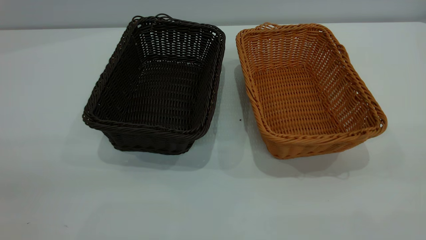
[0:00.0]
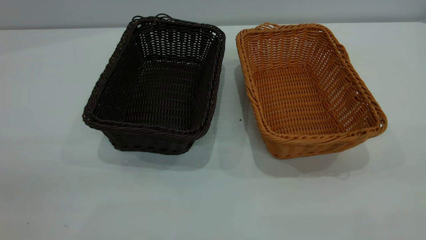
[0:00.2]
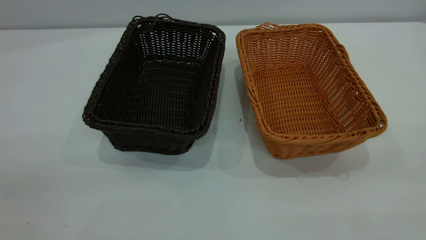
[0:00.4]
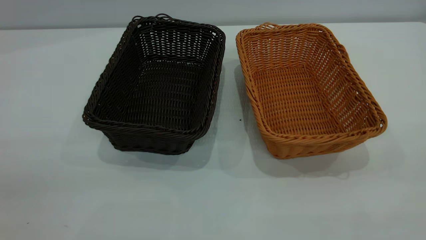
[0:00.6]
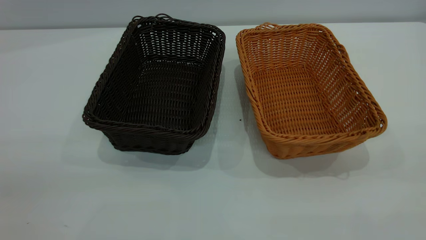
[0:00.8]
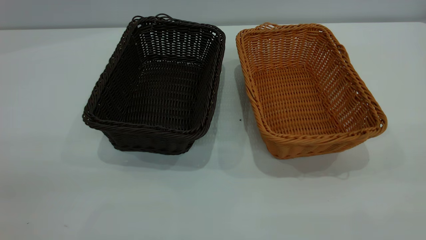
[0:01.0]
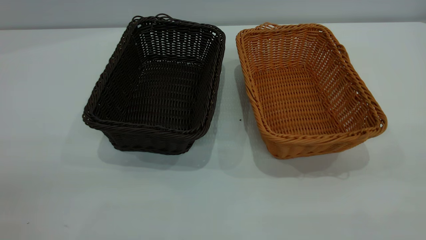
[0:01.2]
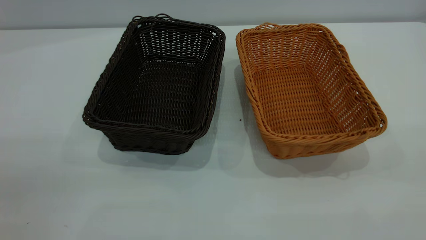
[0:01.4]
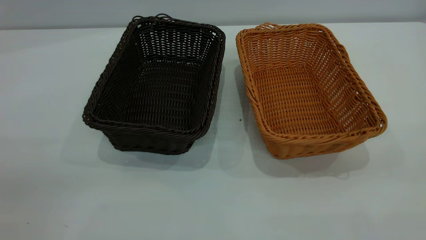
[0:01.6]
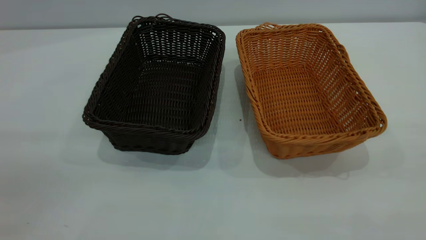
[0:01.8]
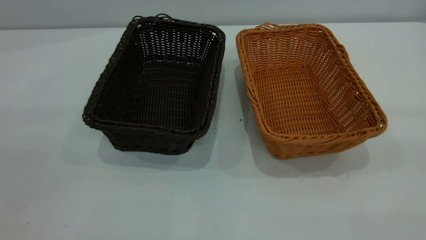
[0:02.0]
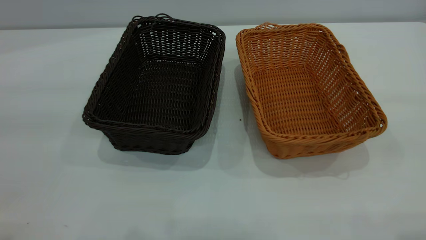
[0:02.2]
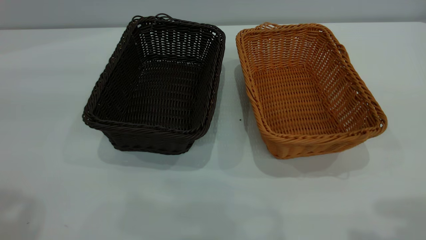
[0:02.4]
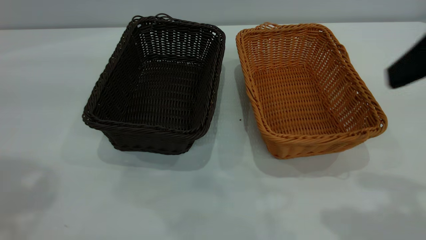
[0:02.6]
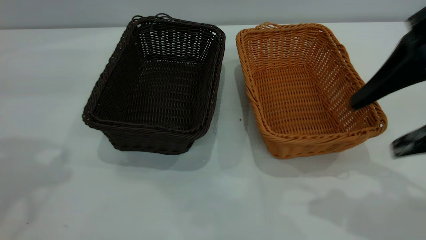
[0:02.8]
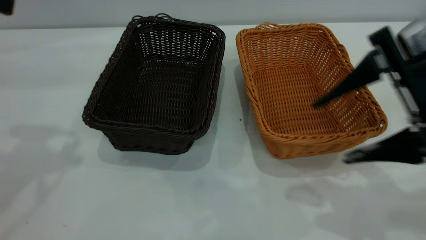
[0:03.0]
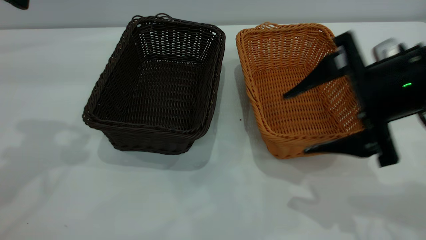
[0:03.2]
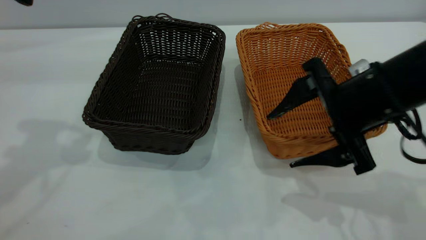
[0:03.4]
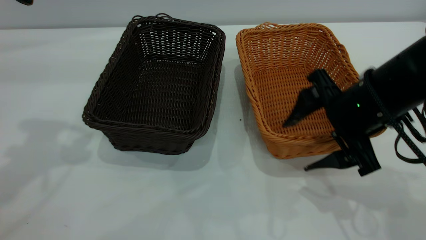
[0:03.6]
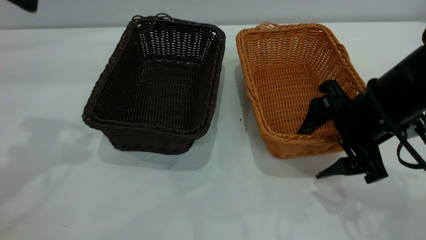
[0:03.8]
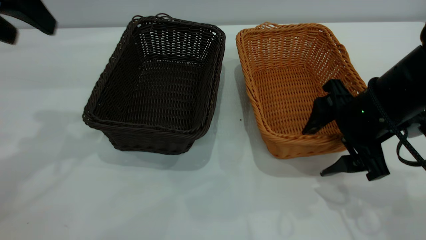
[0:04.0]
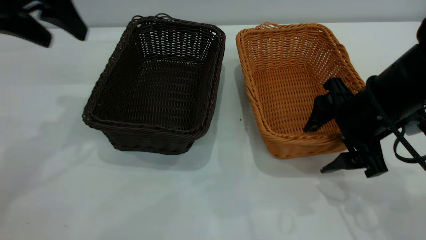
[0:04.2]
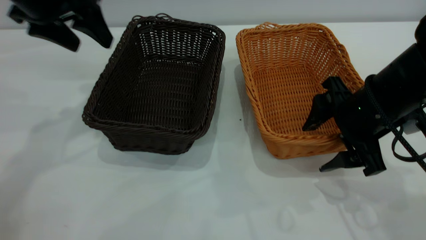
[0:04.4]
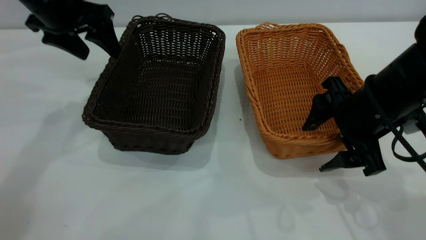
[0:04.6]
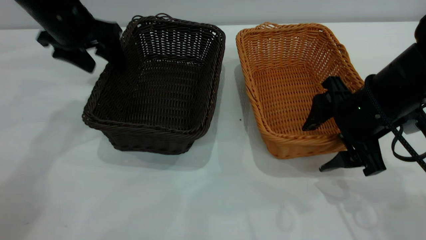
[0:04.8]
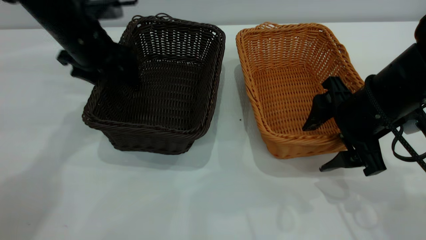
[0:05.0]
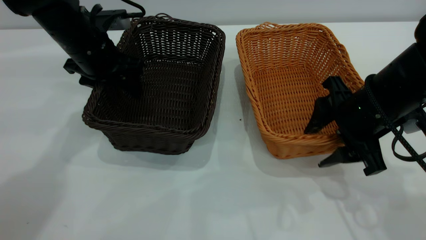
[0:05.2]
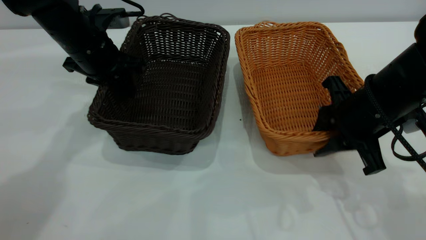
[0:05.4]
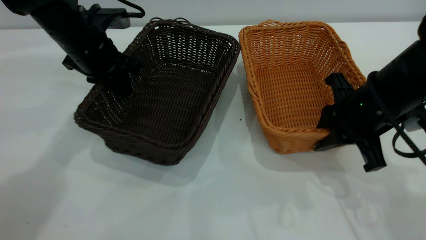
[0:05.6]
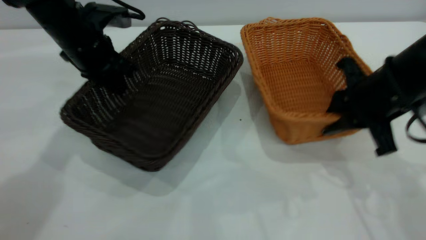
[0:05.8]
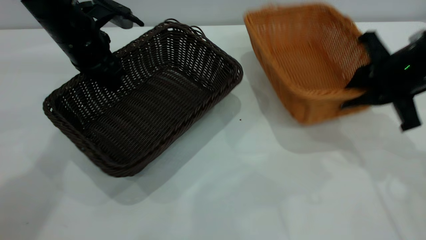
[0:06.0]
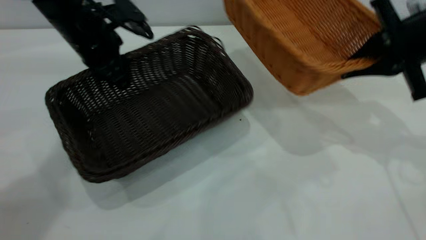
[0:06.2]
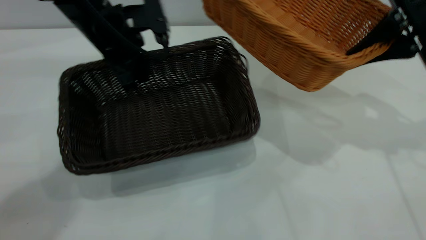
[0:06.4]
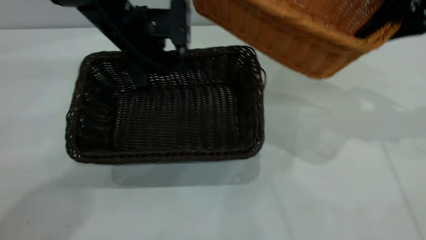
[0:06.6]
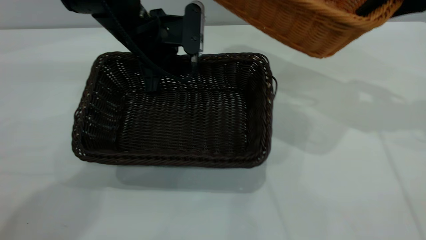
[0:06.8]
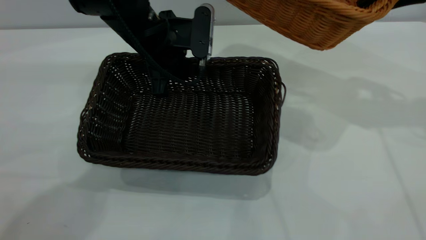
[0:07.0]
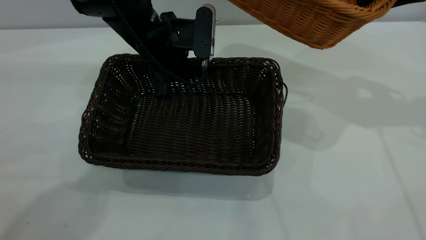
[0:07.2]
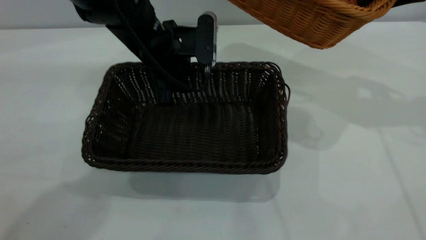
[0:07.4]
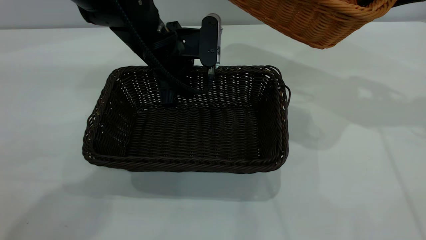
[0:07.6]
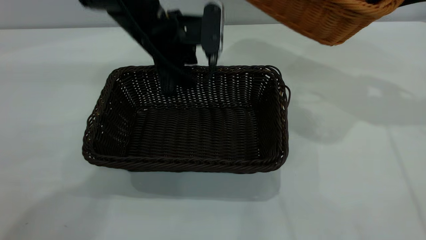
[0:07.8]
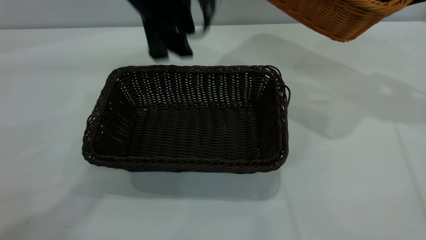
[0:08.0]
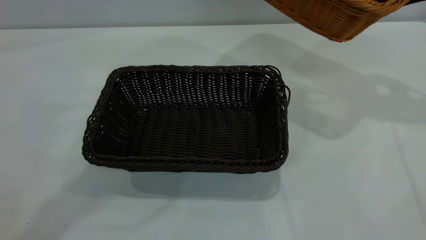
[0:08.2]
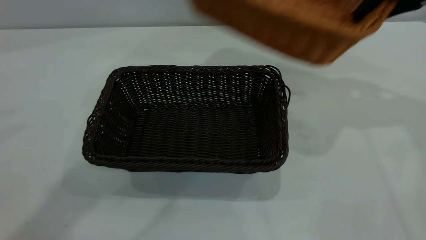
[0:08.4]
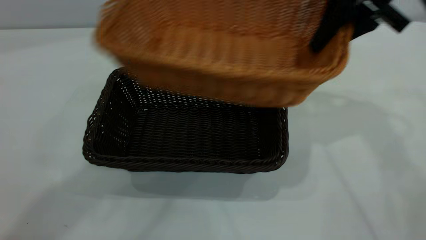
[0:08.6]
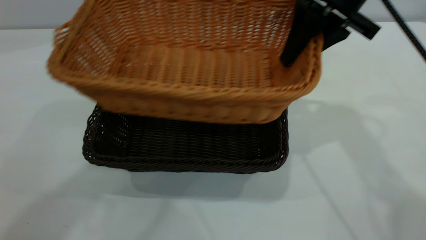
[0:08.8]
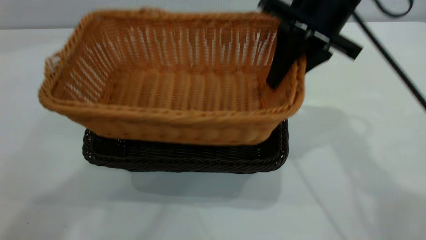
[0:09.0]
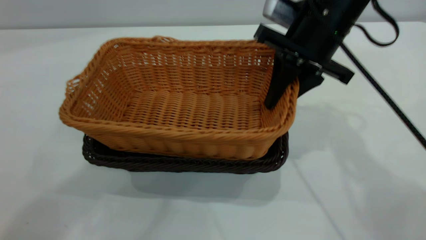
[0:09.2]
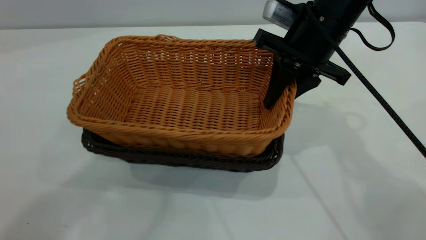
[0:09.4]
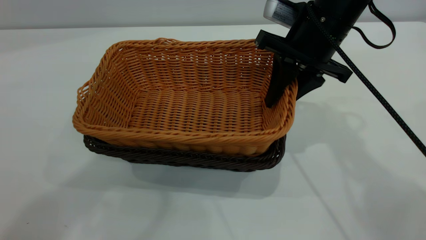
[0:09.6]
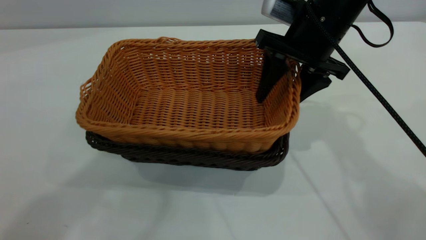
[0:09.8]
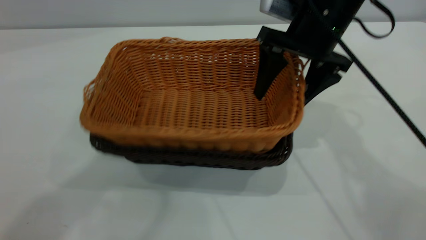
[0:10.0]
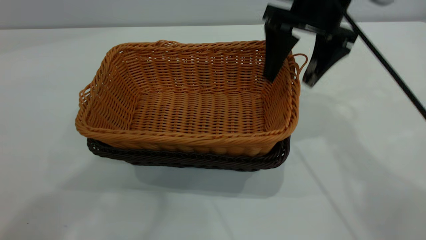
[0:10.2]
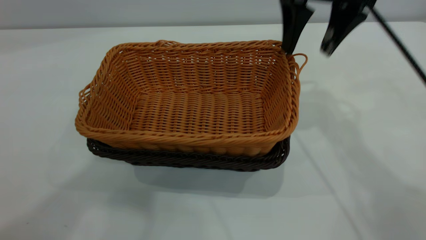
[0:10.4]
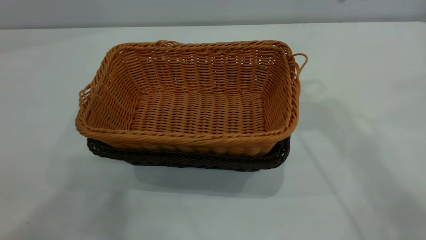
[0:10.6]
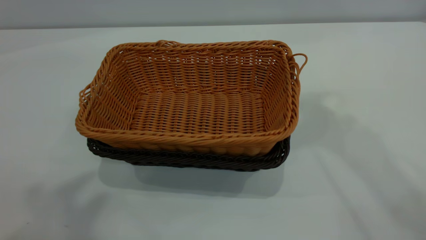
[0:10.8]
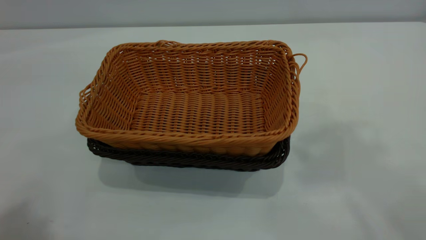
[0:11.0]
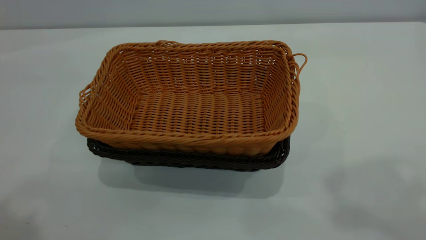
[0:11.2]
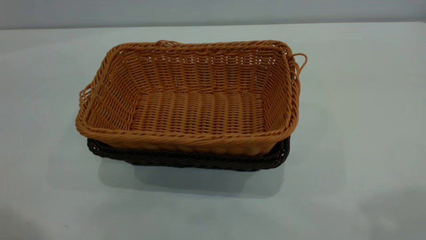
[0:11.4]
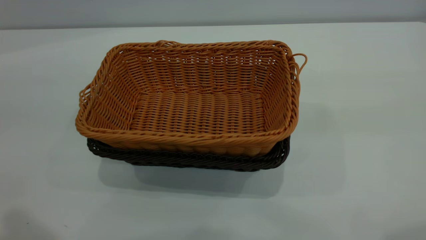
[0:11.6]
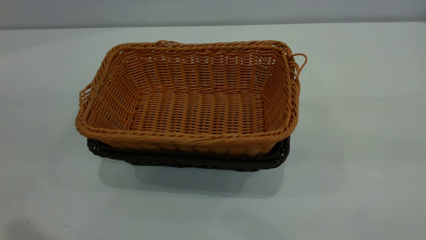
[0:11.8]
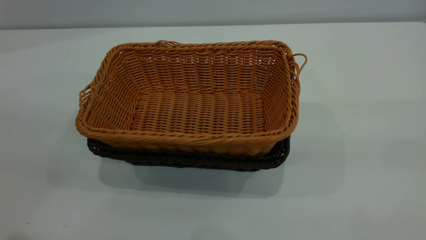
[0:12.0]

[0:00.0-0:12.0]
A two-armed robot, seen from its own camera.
Task of the whole recording: the left gripper grasp the black basket and place it in the center of the table, the right gripper grasp the brown basket and place it inside the black one.
Step, 0:00.0 to 0:06.0: Pick up the light basket with the right gripper.
Step, 0:06.2 to 0:08.0: Move the dark basket to the center of view.
Step, 0:08.2 to 0:10.4: Place the light basket on the dark basket.
0:00.0 to 0:01.6: The two grippers keep their place.
0:01.6 to 0:03.0: The right gripper shifts approximately 30 cm forward and downward.
0:03.0 to 0:04.4: The left gripper moves forward, downward and to the right, approximately 15 cm. Meanwhile the right gripper goes about 10 cm downward and forward.
0:04.4 to 0:06.0: The left gripper travels downward by about 10 cm, and closes its fingers. The right gripper travels to the right by some 5 cm, and closes its fingers.
0:06.0 to 0:07.6: The right gripper shifts approximately 15 cm upward and forward; the left gripper travels to the right by approximately 10 cm, and opens up.
0:07.6 to 0:09.0: The left gripper shifts about 35 cm upward. Meanwhile the right gripper heads to the left, covering some 15 cm.
0:09.0 to 0:10.4: The right gripper shifts by about 5 cm, and opens up.
0:10.4 to 0:12.0: The right gripper shifts approximately 35 cm backward. The left gripper travels downward, backward and to the left by about 25 cm.

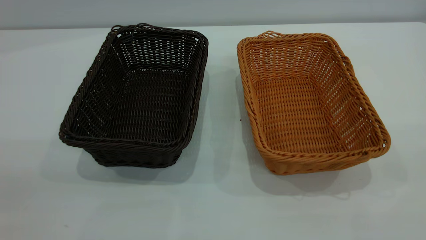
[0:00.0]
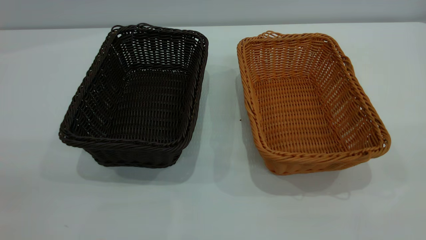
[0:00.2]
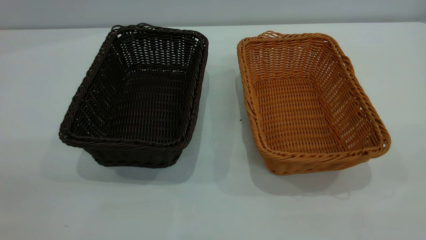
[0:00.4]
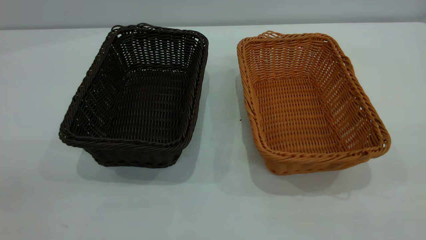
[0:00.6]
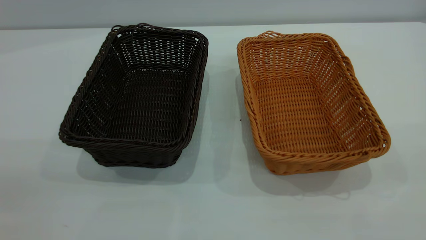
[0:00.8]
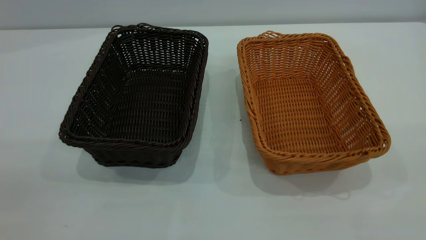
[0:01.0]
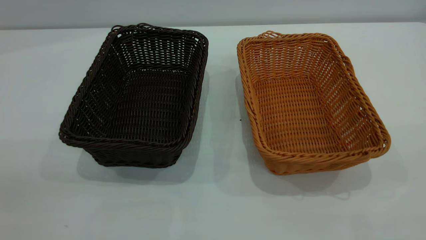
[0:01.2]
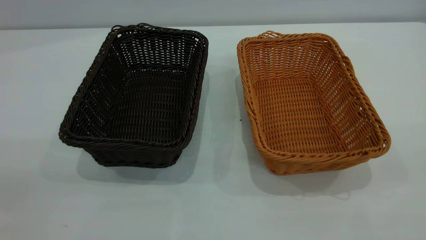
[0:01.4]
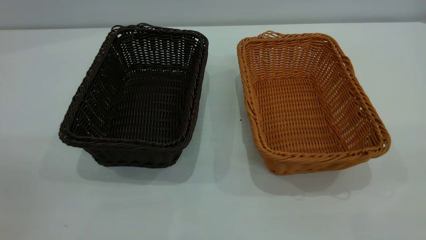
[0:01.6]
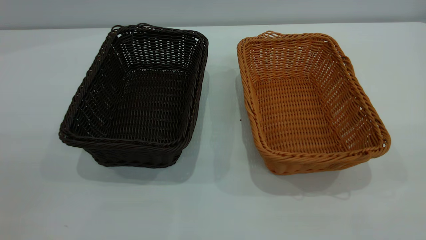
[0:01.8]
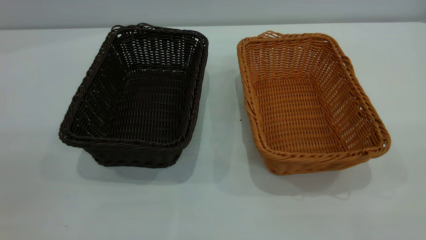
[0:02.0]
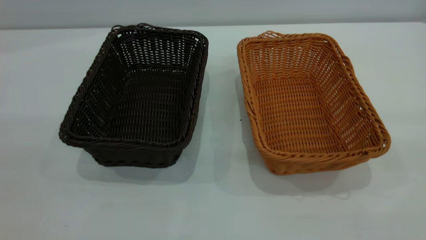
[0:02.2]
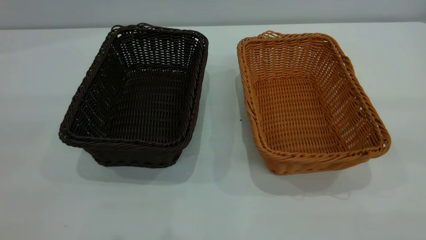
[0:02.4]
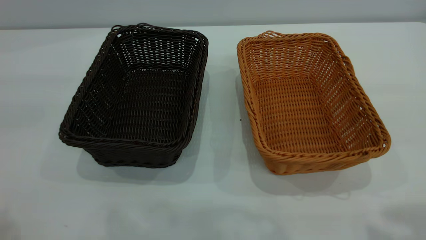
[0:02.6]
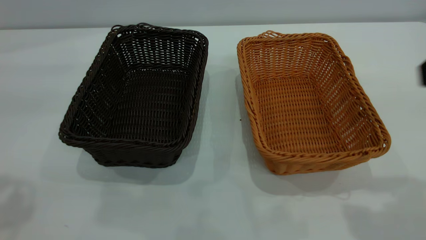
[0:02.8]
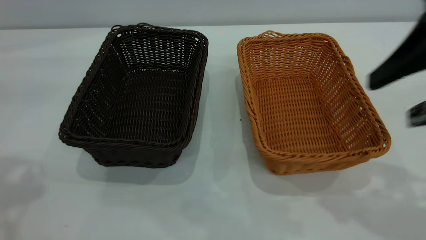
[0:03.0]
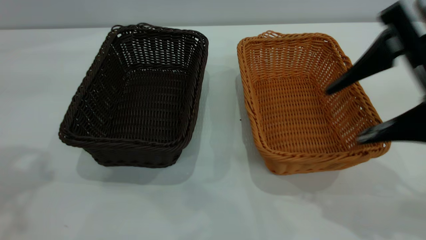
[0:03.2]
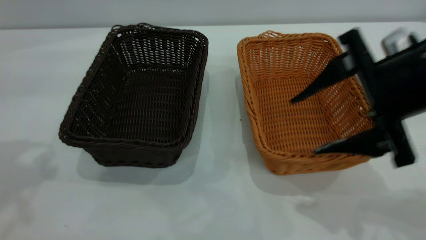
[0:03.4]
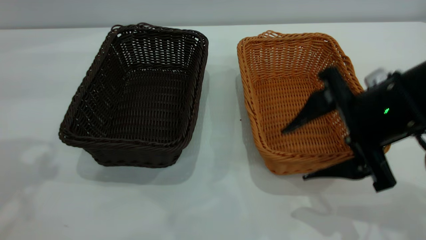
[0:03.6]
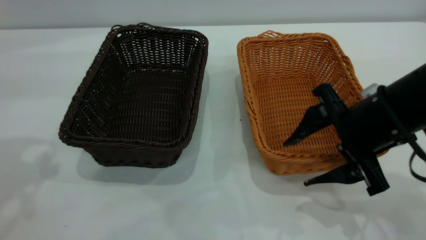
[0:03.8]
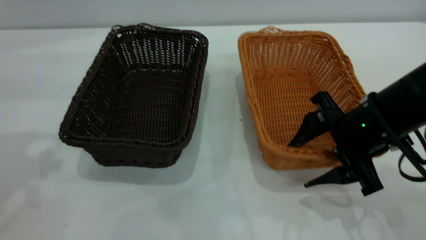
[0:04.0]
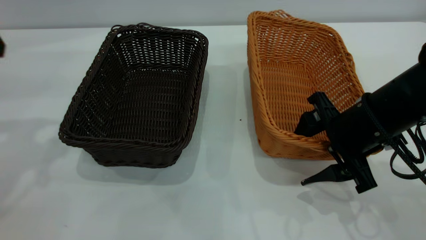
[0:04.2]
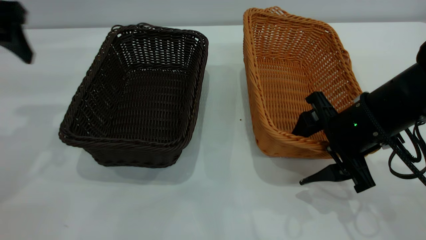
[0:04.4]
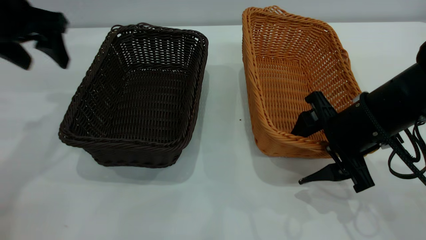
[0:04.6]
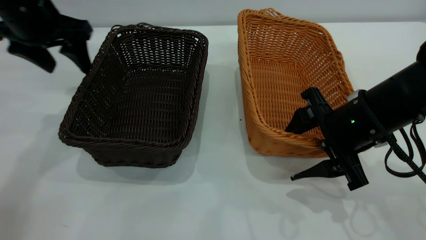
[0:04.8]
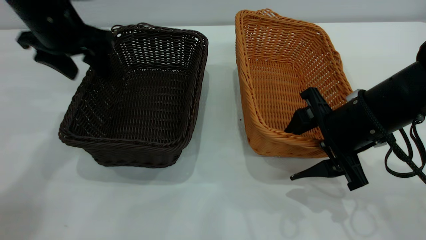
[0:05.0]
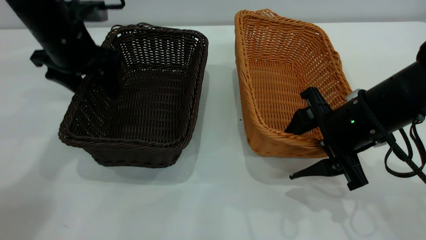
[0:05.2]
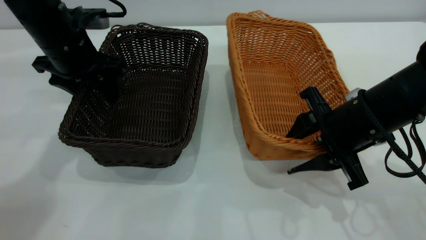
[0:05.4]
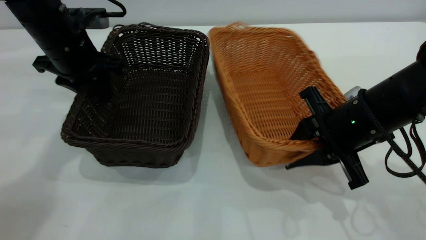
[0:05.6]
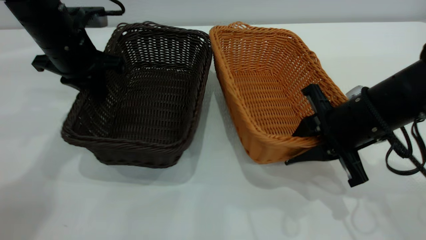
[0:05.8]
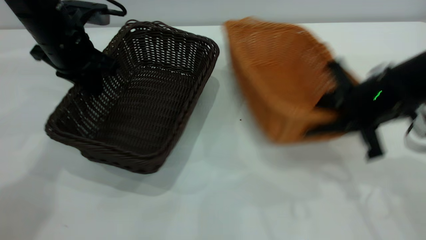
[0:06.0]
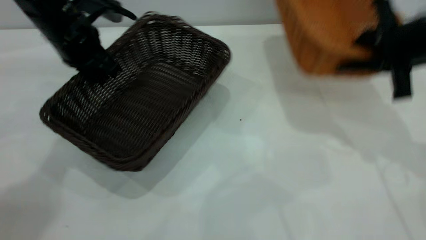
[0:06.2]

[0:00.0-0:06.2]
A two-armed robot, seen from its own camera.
Task of the whole recording: the left gripper grasp the black basket and place it in the center of the table, the right gripper grasp the brown basket and place it inside the black one.
Step, 0:00.0 to 0:05.8: Pick up the light basket with the right gripper.
0:01.6 to 0:03.2: The right gripper goes some 25 cm forward and downward.
0:03.2 to 0:04.6: The left gripper heads forward and downward, covering approximately 20 cm. Meanwhile the right gripper goes approximately 15 cm downward.
0:04.6 to 0:06.2: The left gripper shifts roughly 10 cm to the right and downward, and closes up. Meanwhile the right gripper goes approximately 15 cm upward, to the right and forward, and closes its fingers.
